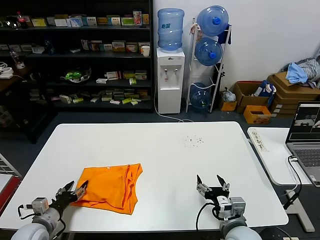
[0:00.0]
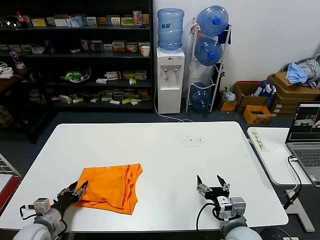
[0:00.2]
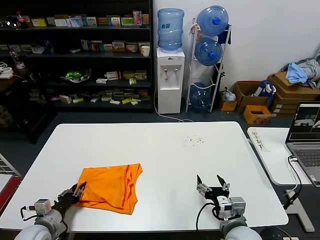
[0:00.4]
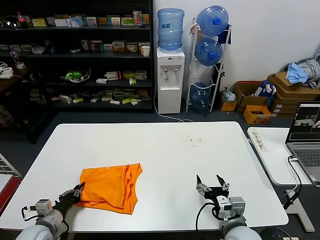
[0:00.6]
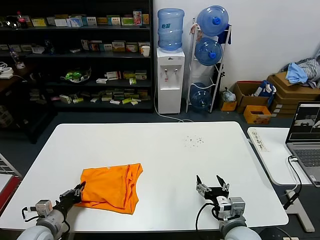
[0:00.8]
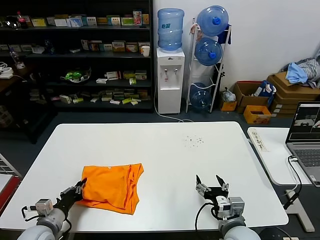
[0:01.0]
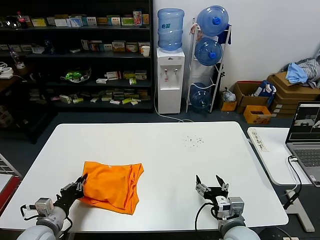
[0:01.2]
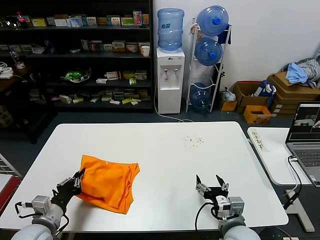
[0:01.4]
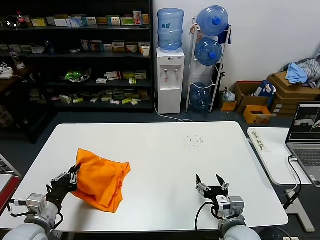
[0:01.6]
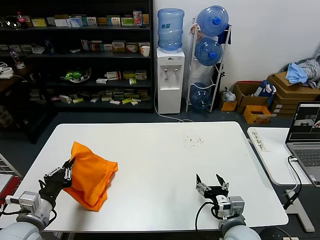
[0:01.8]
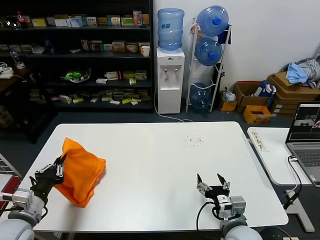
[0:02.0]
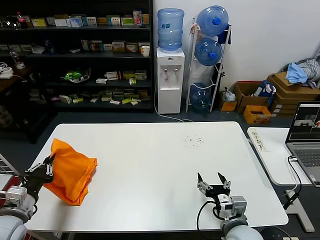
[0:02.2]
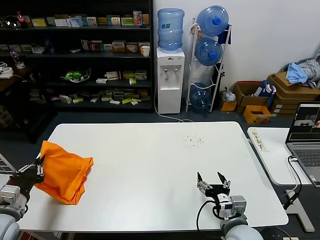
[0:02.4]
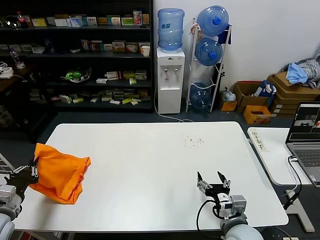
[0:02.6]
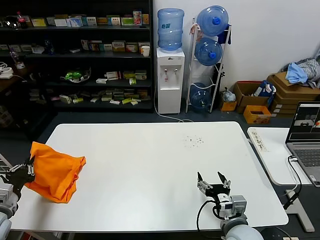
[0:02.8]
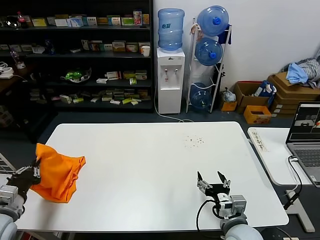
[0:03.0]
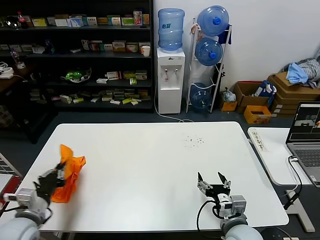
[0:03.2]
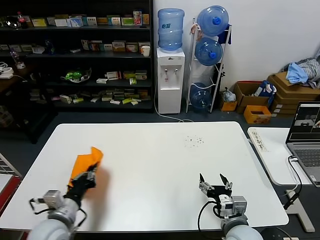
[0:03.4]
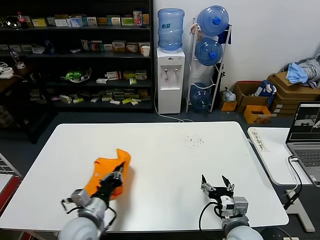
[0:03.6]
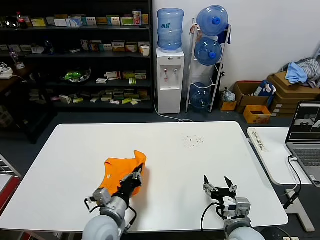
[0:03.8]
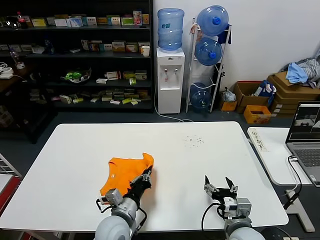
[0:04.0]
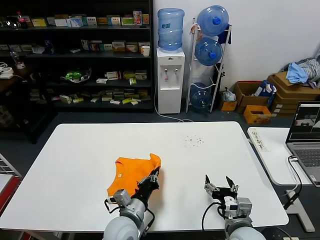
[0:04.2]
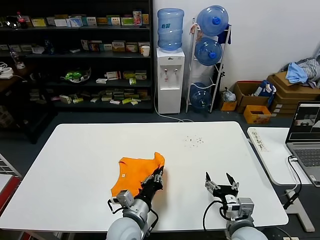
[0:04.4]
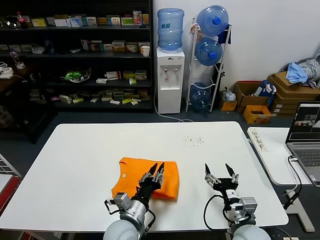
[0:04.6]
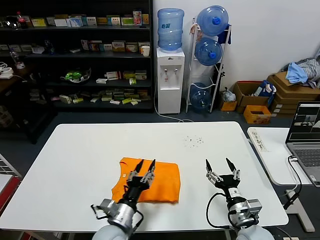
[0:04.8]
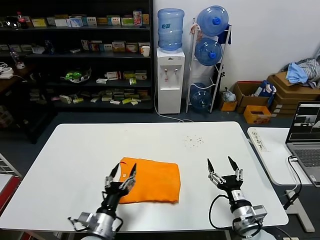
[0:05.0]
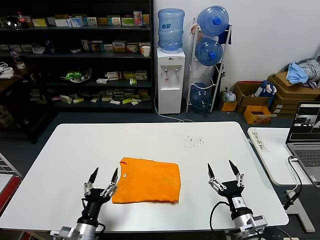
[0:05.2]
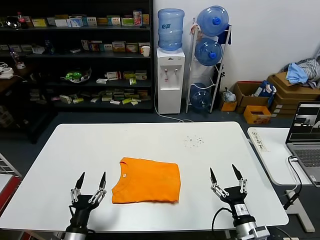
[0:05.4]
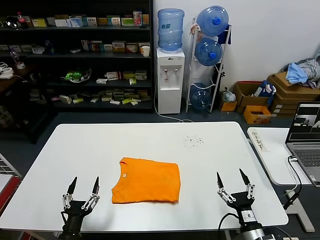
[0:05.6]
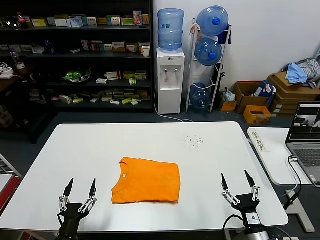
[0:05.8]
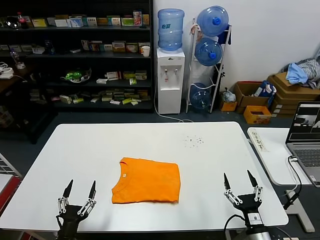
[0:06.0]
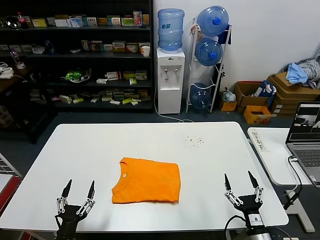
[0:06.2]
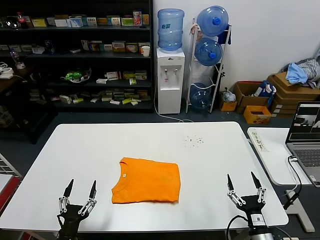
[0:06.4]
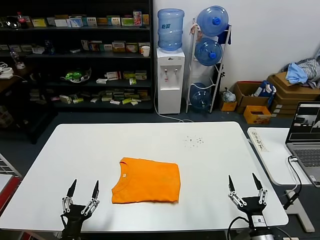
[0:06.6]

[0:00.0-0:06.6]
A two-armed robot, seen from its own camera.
Task of the whole recording: fold and organize the clothes.
Step, 0:00.0 to 0:04.6: Flip the folded clothes over with left gripper.
0:00.0 to 0:01.6: The left gripper heads upward and to the right, covering some 10 cm, and closes up.
0:01.6 to 0:03.2: The left gripper goes roughly 5 cm to the left.
0:03.2 to 0:05.0: The left gripper heads to the right, covering approximately 25 cm, and opens up; the right gripper shifts by approximately 5 cm.
0:05.0 to 0:06.6: The left gripper travels to the left, backward and downward by roughly 15 cm. The right gripper shifts approximately 10 cm backward and downward.
